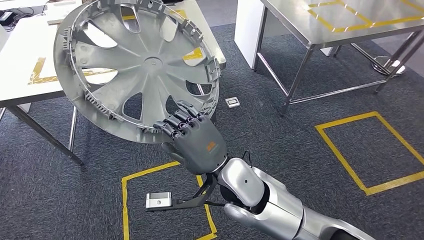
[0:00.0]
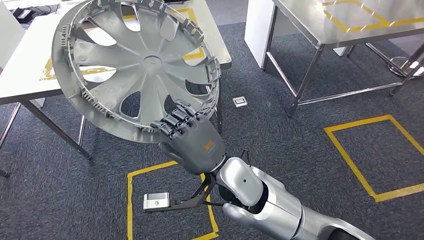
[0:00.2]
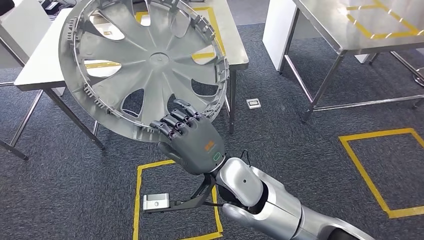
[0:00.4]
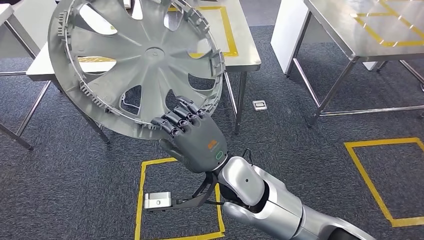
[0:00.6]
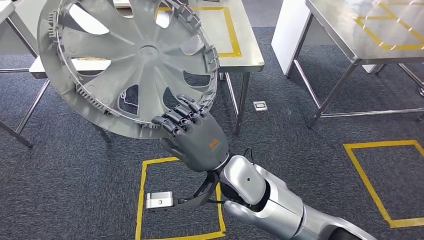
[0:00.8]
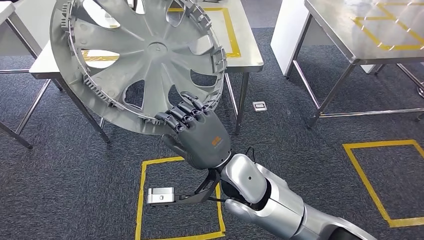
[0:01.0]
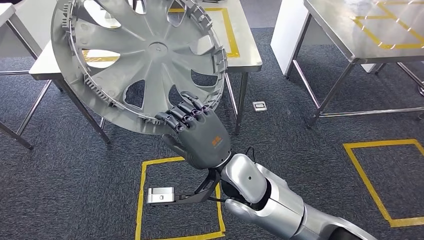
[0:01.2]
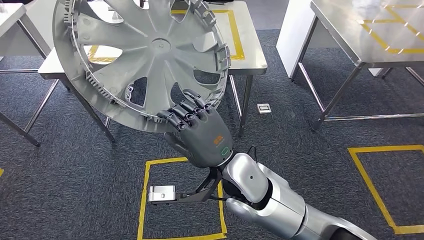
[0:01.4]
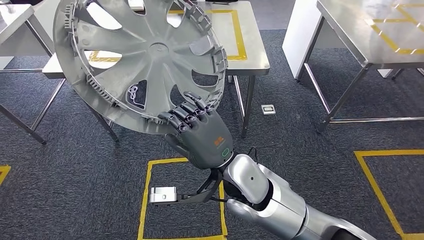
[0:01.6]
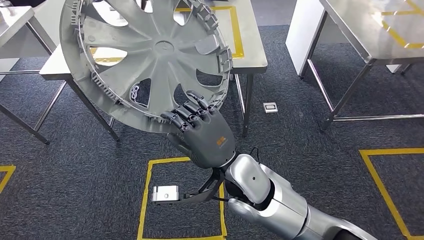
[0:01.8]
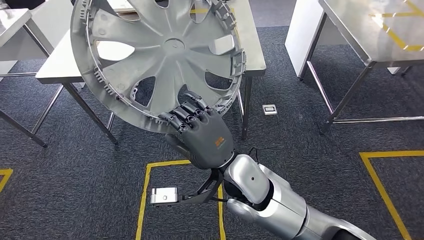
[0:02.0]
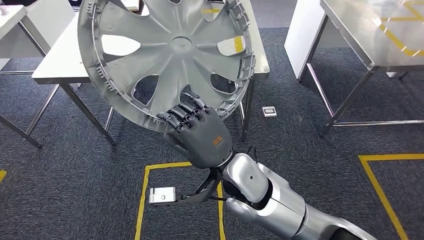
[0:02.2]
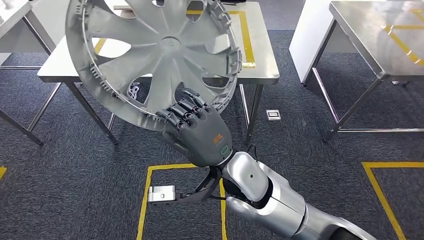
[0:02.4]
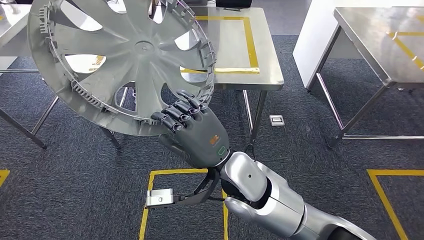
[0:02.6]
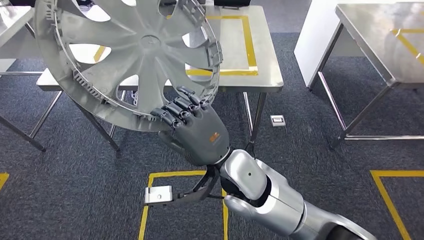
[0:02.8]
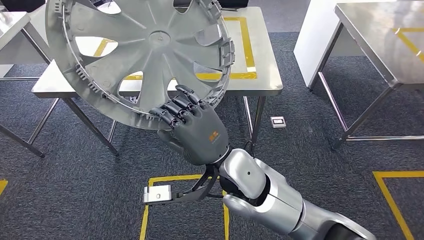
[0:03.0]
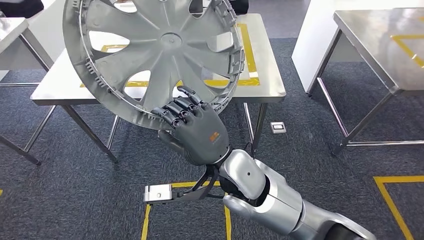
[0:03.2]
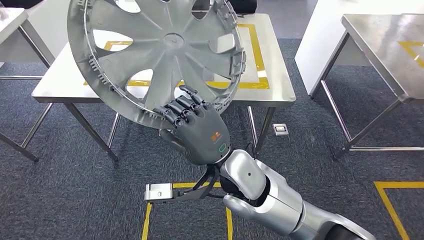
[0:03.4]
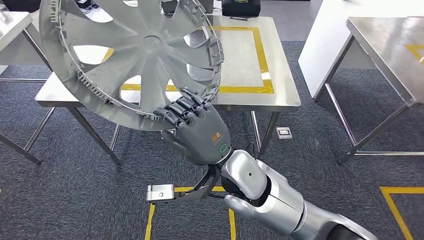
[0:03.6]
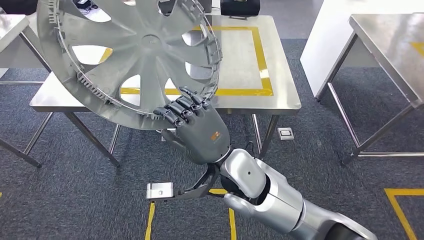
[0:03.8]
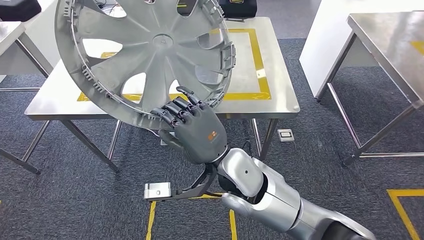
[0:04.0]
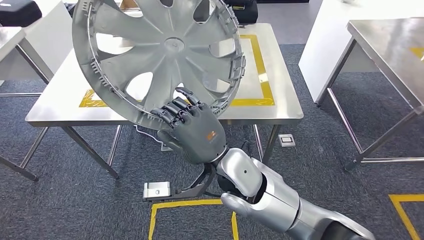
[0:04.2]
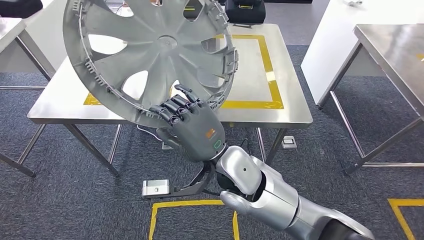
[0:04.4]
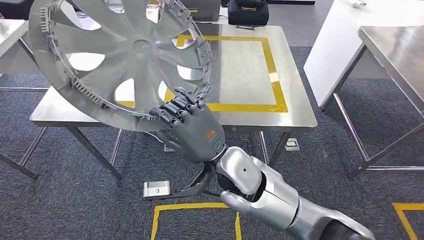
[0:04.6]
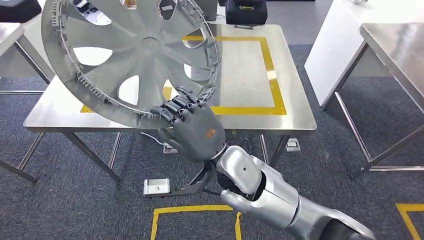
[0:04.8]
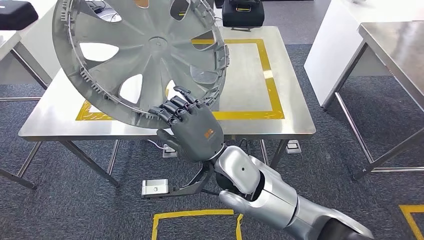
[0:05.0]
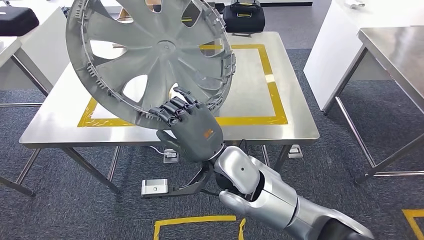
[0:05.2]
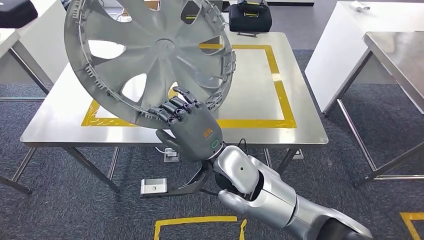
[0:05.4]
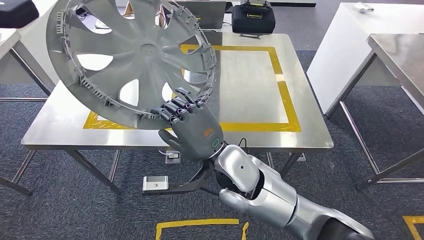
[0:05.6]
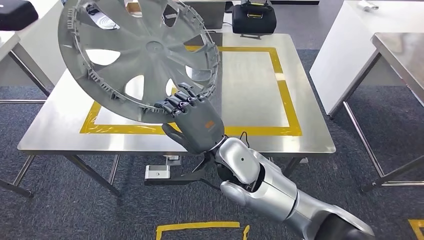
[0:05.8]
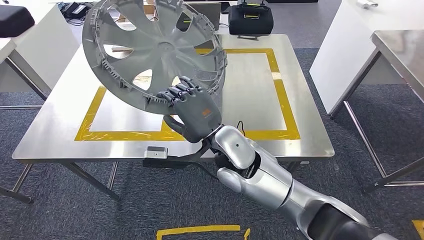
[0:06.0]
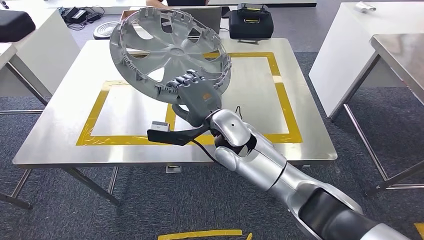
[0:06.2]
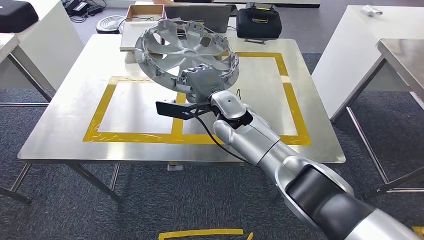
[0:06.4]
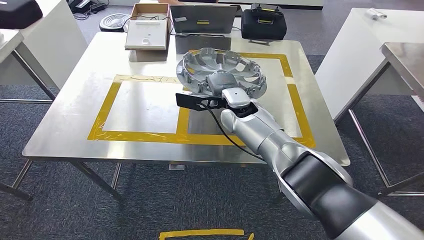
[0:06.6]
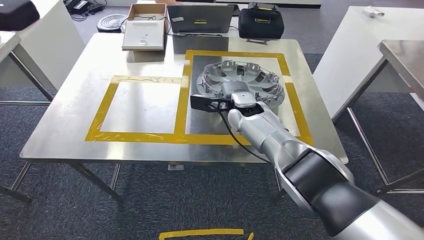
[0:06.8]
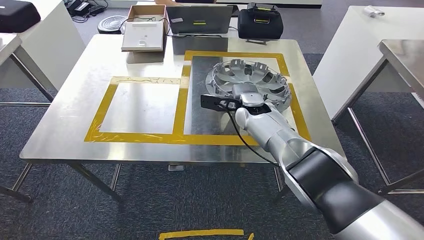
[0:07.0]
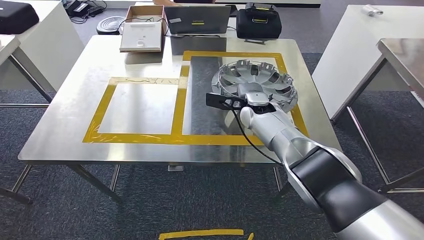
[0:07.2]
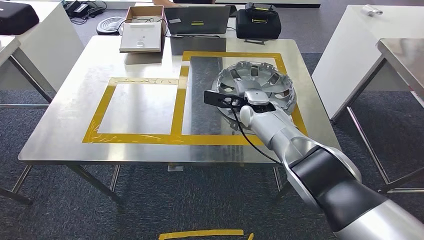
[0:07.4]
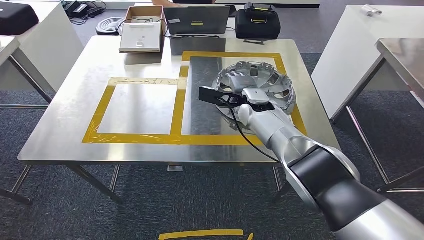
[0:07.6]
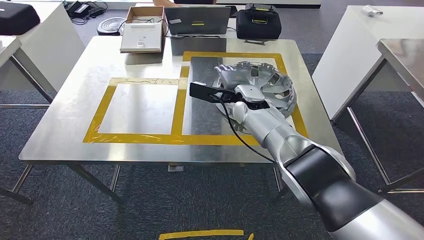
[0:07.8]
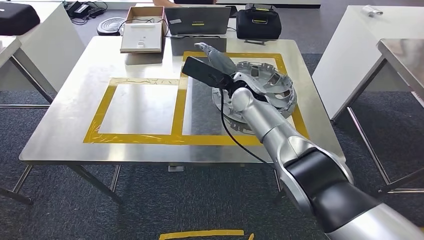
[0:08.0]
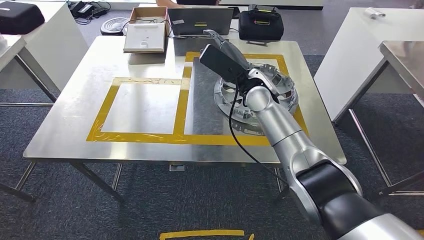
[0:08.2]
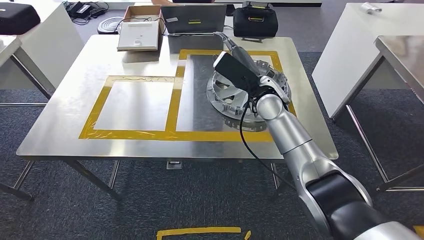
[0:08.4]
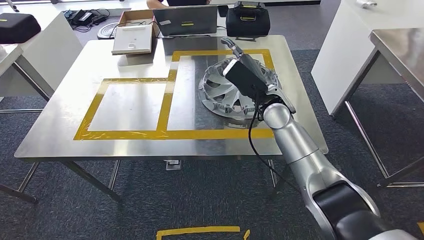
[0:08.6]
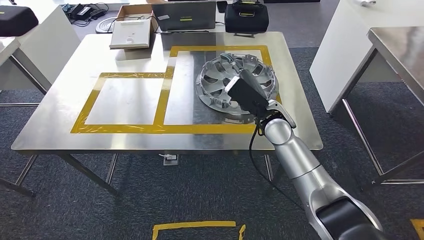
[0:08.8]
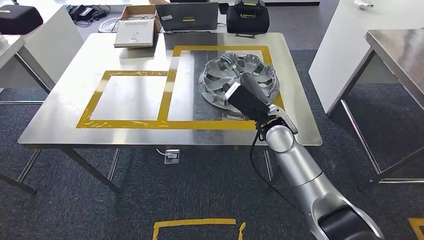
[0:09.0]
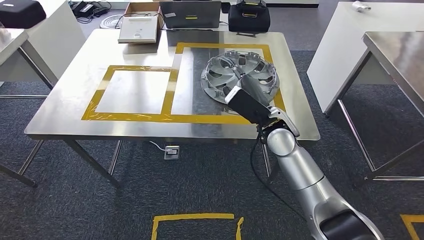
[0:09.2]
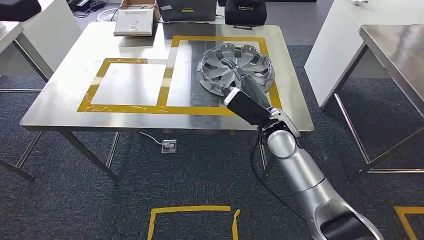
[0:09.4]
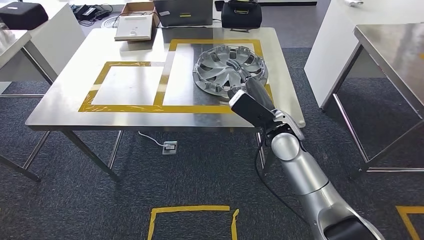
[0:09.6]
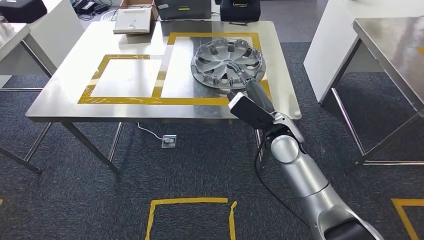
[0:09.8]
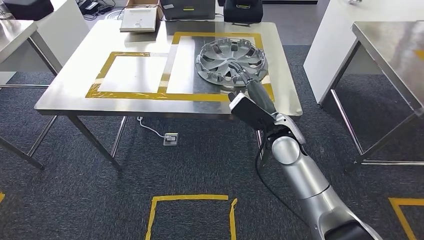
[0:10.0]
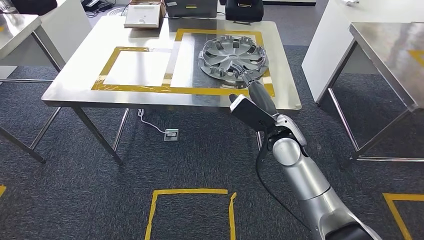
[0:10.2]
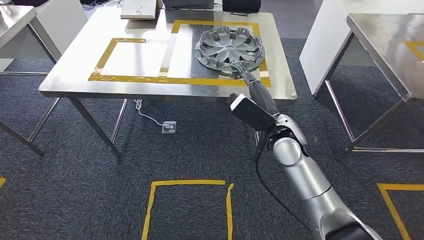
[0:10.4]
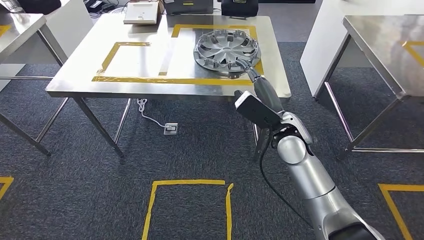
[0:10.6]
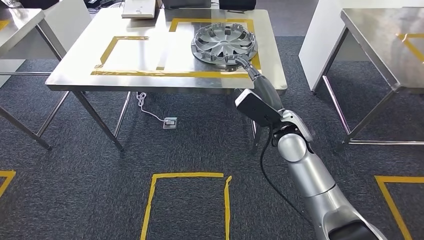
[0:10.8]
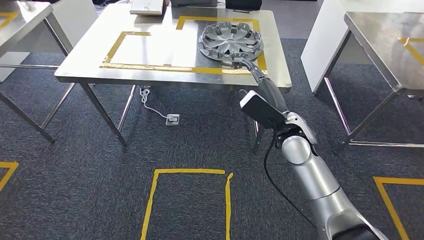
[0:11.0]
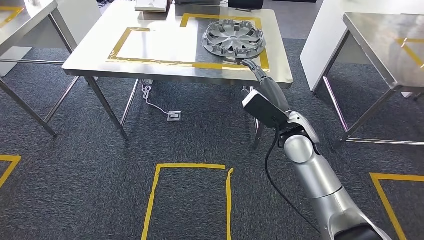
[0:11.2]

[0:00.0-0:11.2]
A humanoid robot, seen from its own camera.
Step, 0:01.0 to 0:08.2: Insert the small parts into the corresponding holes on the workbench.
Step, 0:08.6 to 0:11.2: Move to the initial position of the workbench.
